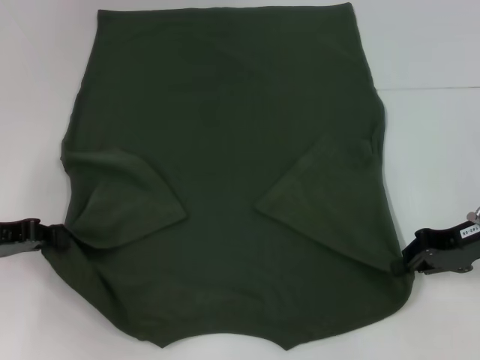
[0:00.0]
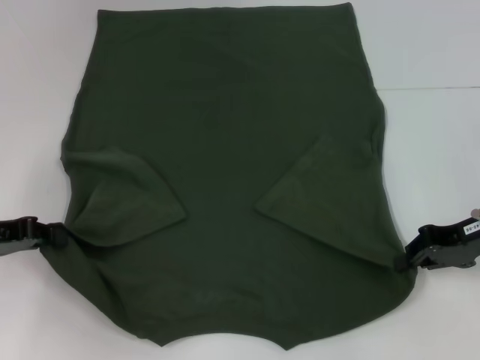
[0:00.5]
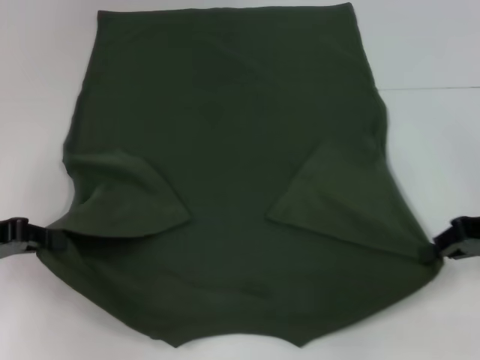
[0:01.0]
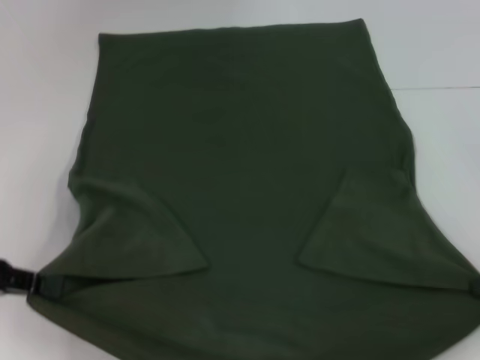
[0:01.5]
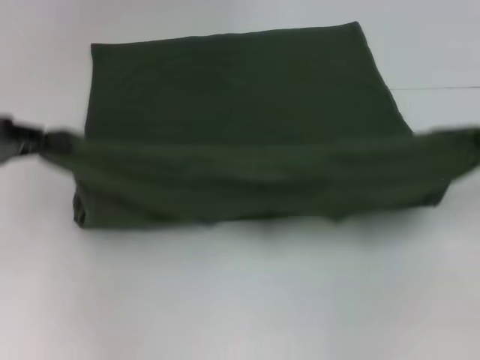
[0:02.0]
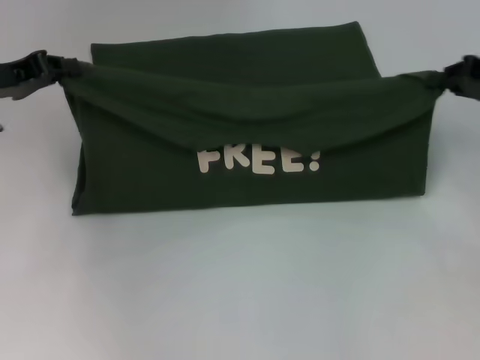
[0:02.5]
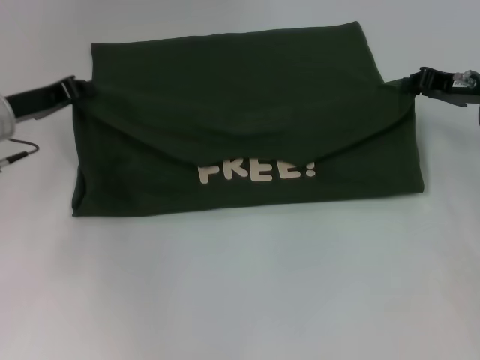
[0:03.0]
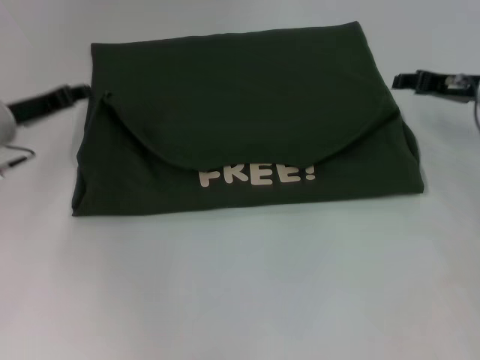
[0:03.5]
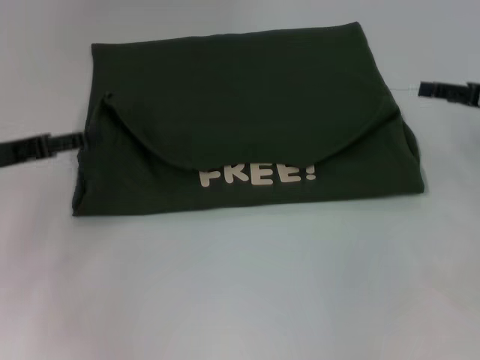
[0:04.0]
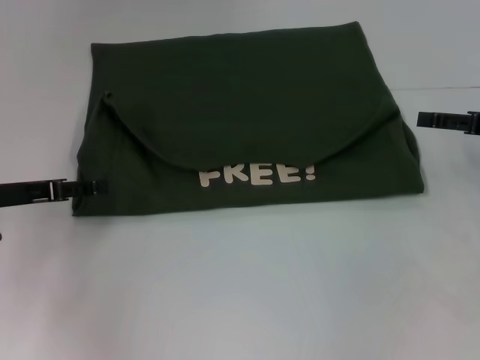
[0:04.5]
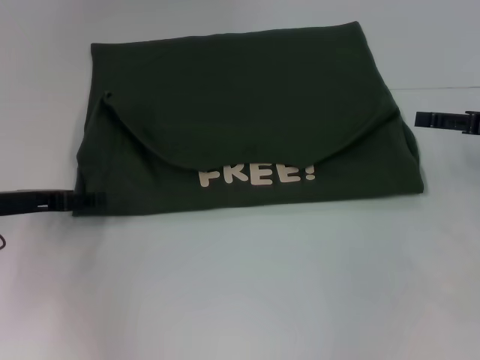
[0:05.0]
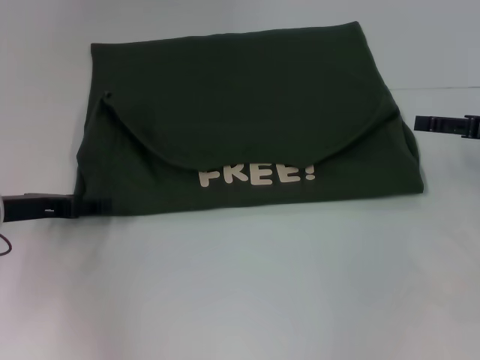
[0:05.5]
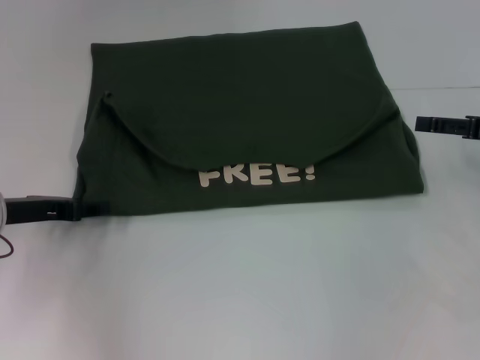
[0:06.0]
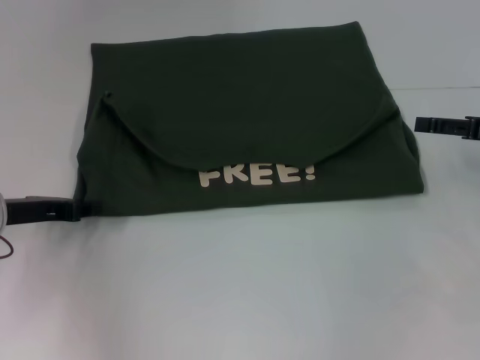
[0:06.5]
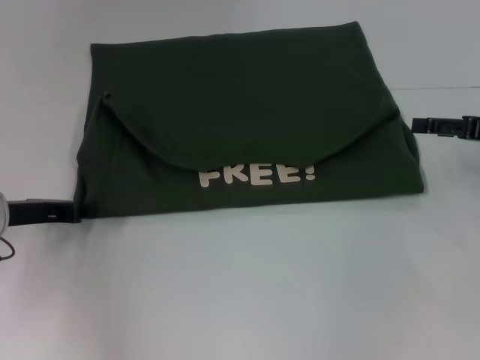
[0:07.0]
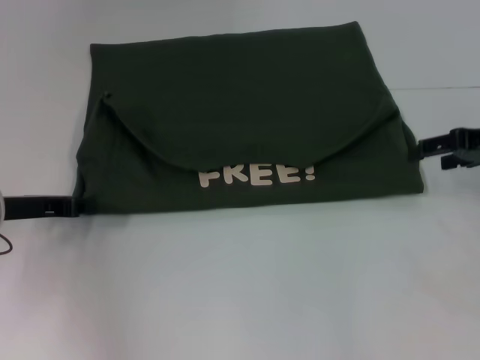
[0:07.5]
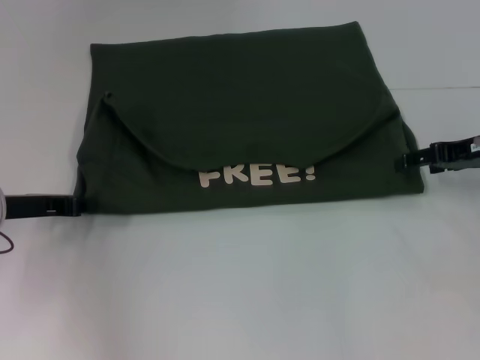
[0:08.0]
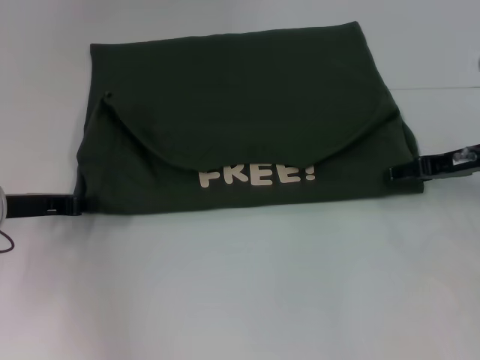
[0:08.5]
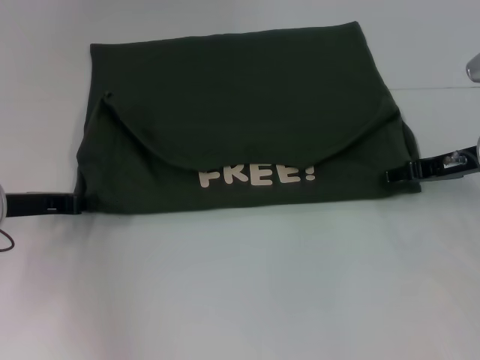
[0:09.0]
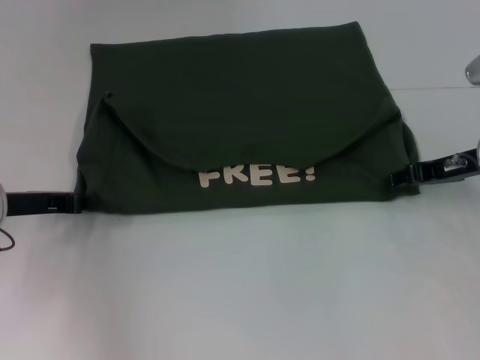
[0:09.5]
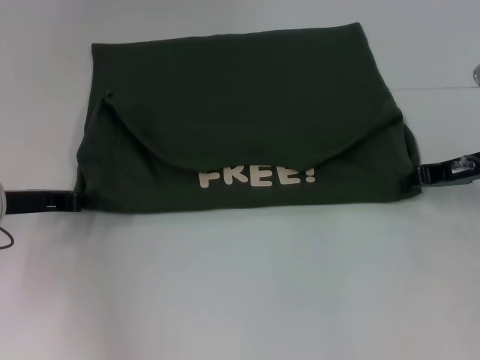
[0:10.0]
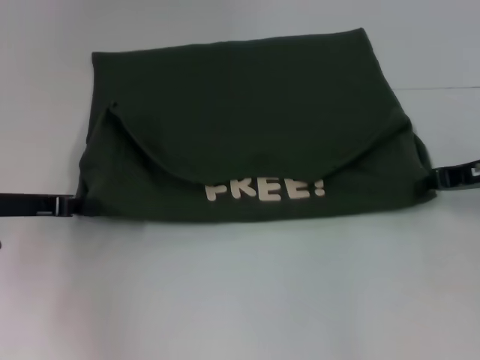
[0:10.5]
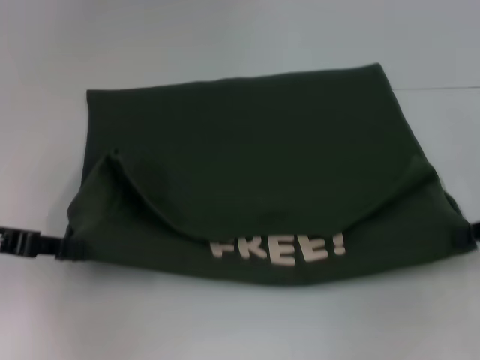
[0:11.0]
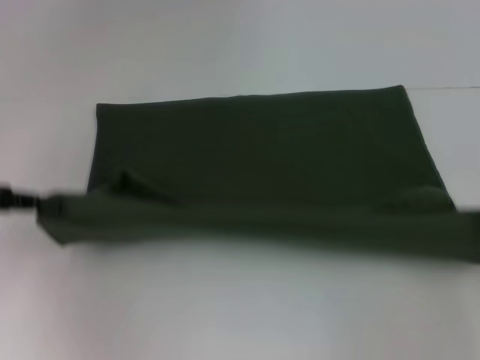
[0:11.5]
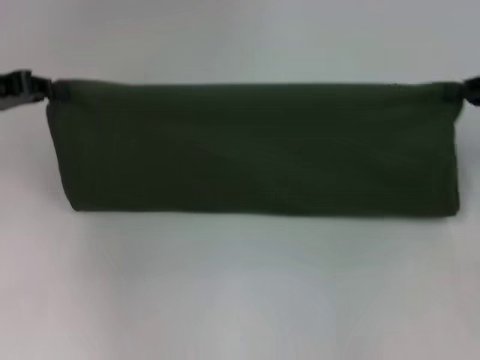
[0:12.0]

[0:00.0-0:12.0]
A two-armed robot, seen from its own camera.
Step, 0:00.0 to 0:03.5: Fold the clothes with your left hand.
Step, 0:00.0 to 0:03.5: Fold the clothes with your right hand.
Step, 0:04.0 to 0:11.0: Pull the clothes with your left hand.
Step, 0:04.0 to 0:11.0: Pull the clothes with your right hand.
0:00.0 to 0:02.0: The right gripper shifts approximately 15 cm to the right and upward. The left gripper moves upward, some 10 cm.
0:02.0 to 0:04.0: The right gripper opens; the left gripper travels downward by some 5 cm, reaches roughly 10 cm forward, then returns, and opens its fingers.
0:04.0 to 0:06.0: The left gripper goes about 5 cm downward.
0:06.0 to 0:08.0: The right gripper ends up some 5 cm from where it was. Meanwhile the left gripper closes.
0:08.0 to 0:10.0: The right gripper closes.
0:10.0 to 0:12.0: The left gripper heads upward, covering some 10 cm. Meanwhile the right gripper moves upward and to the right, approximately 10 cm, and goes backward and returns, roughly 15 cm each way.

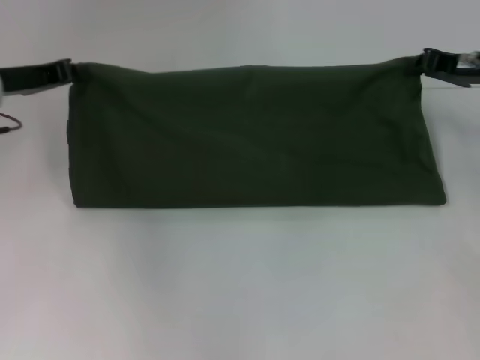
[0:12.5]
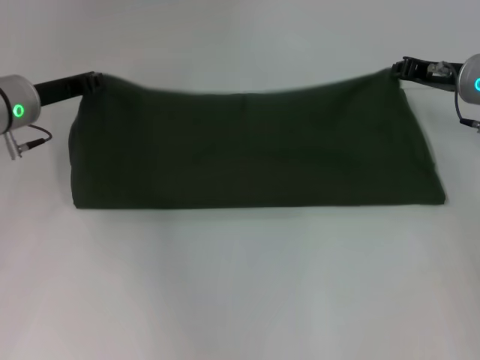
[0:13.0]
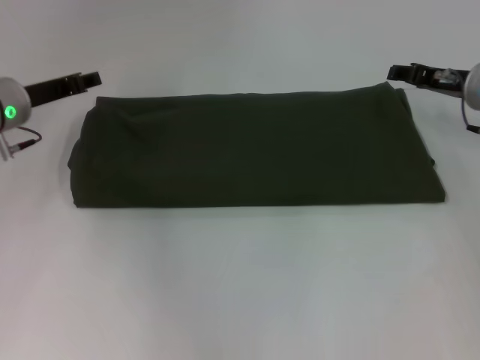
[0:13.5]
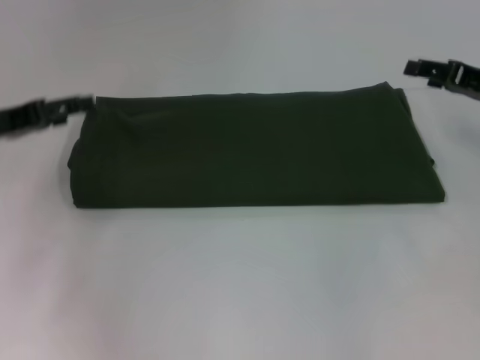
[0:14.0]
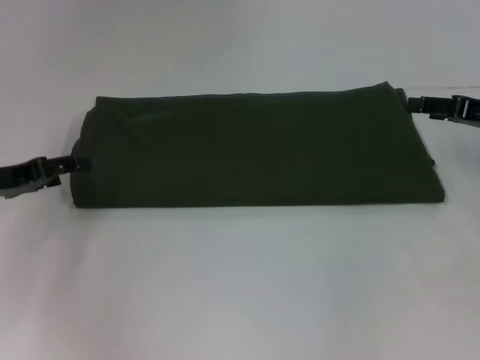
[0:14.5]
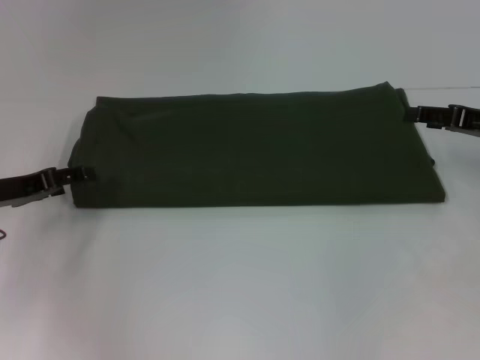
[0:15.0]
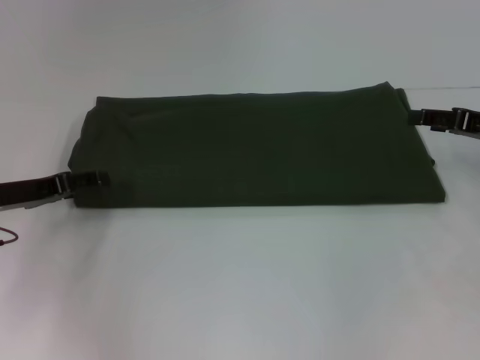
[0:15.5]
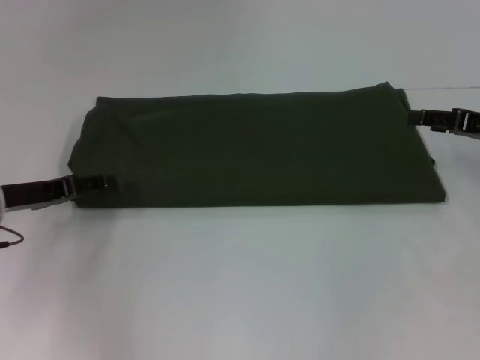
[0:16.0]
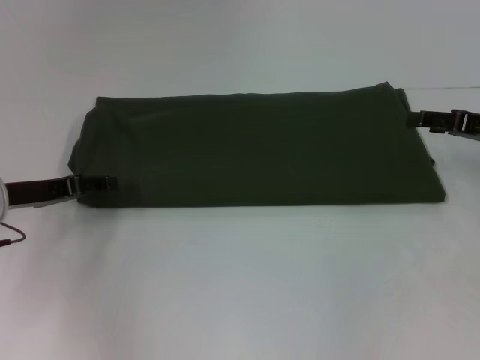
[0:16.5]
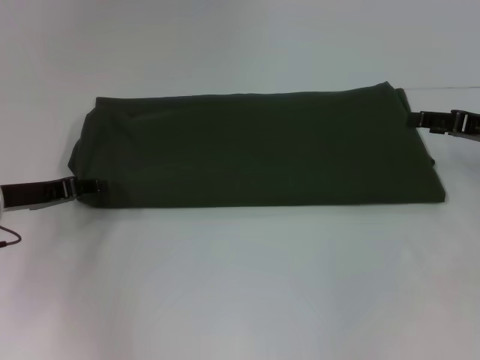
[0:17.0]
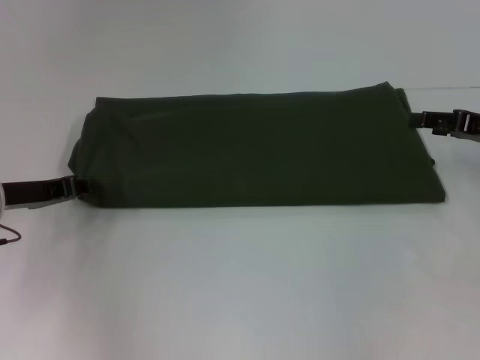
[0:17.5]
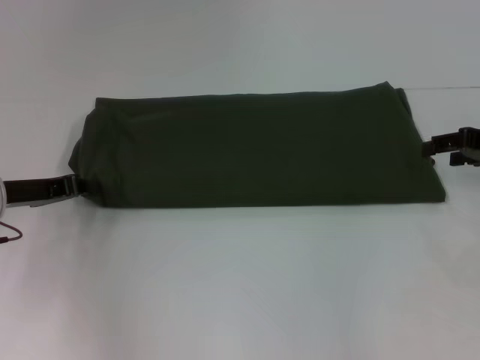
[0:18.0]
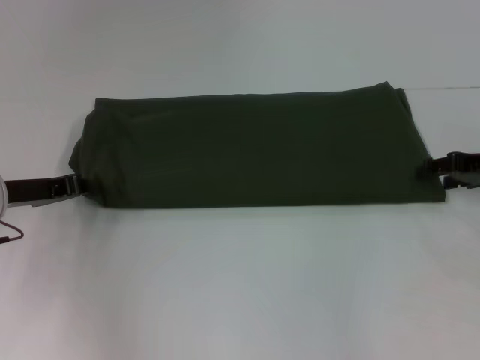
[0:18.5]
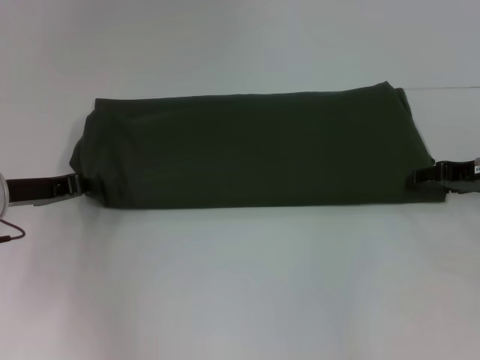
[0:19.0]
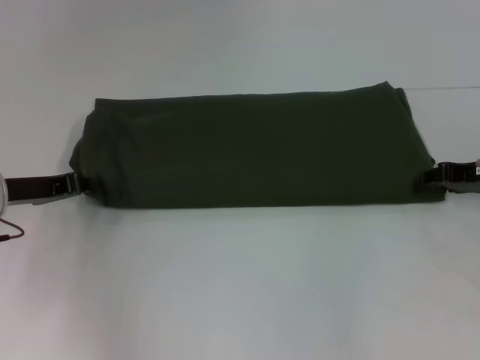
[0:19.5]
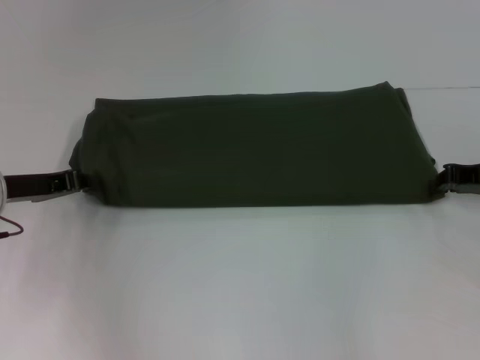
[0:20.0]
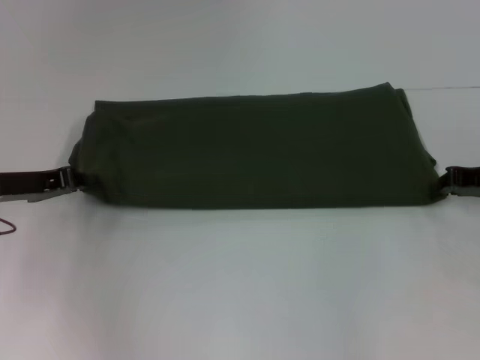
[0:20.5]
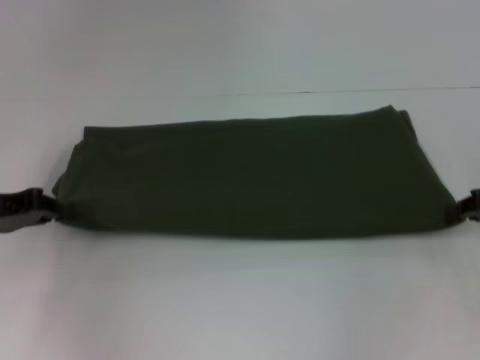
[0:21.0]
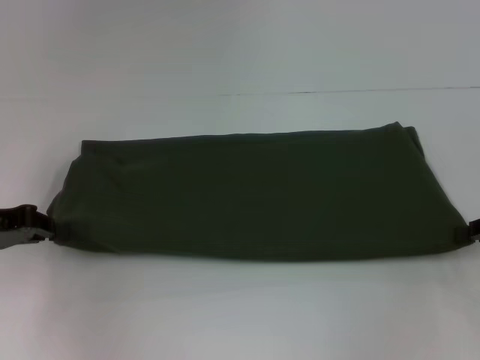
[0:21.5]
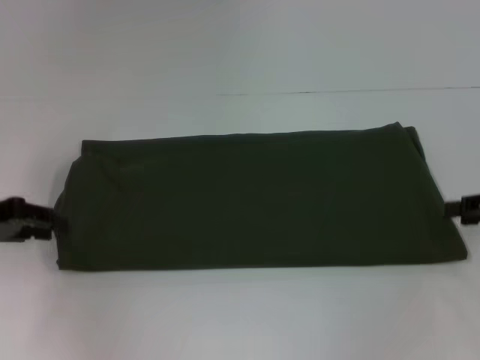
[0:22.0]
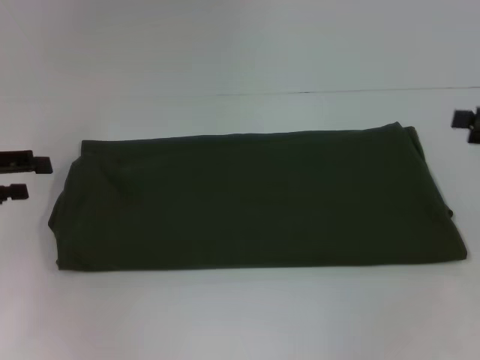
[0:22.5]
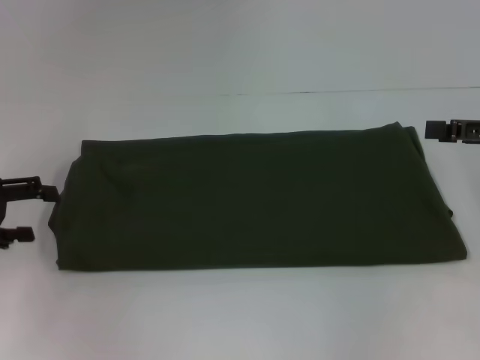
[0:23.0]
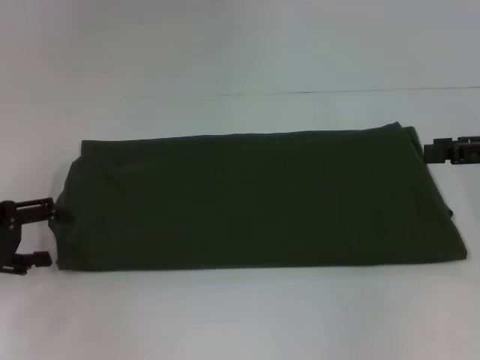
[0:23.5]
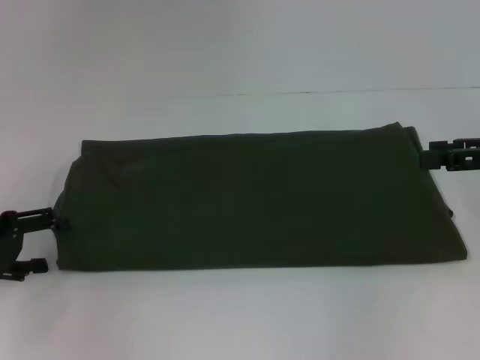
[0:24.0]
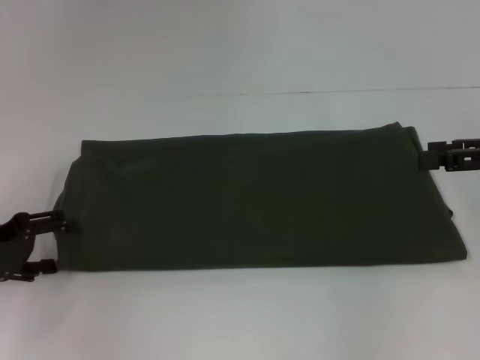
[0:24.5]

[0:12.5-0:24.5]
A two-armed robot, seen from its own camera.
Step, 0:13.5 to 0:22.5: Pull the clothes with your left hand.
Step, 0:13.5 to 0:22.5: Pull the clothes with your right hand.
0:12.5 to 0:14.5: The right gripper is displaced backward by some 5 cm, and opens. The left gripper is displaced backward and downward by some 10 cm, and opens.
0:14.5 to 0:16.5: There are only small adjustments of the grippers.
0:16.5 to 0:18.5: The left gripper closes its fingers.
0:18.5 to 0:20.5: The right gripper closes its fingers.
0:20.5 to 0:22.5: The left gripper is displaced to the left and upward by approximately 10 cm, and opens its fingers, while the right gripper goes about 5 cm upward, and opens up.
0:22.5 to 0:24.5: The left gripper shifts some 5 cm downward.

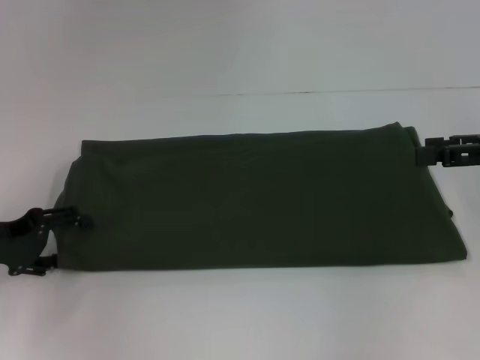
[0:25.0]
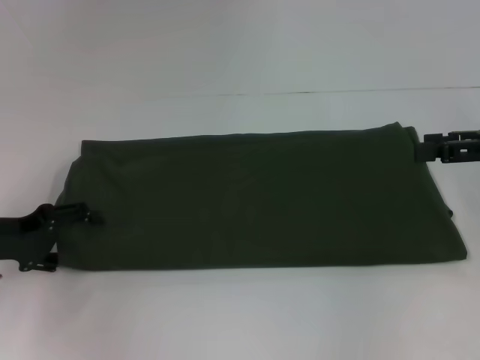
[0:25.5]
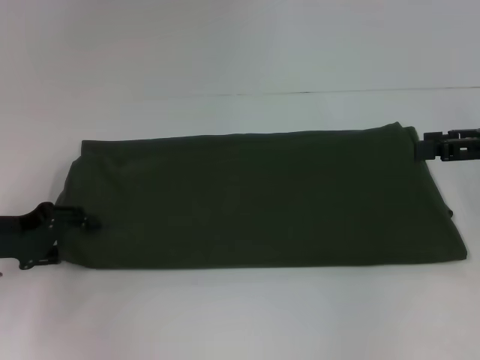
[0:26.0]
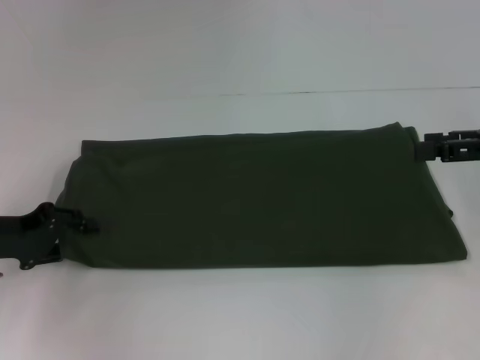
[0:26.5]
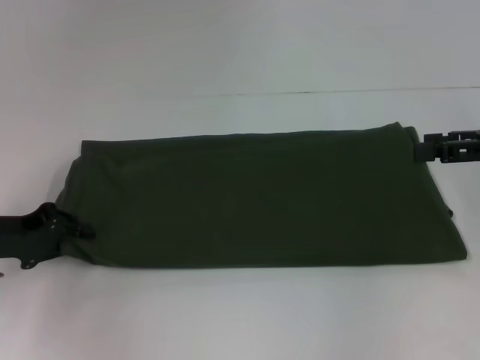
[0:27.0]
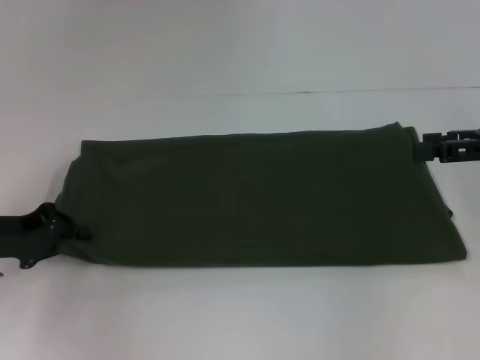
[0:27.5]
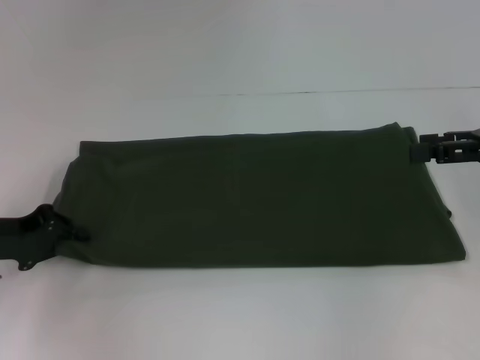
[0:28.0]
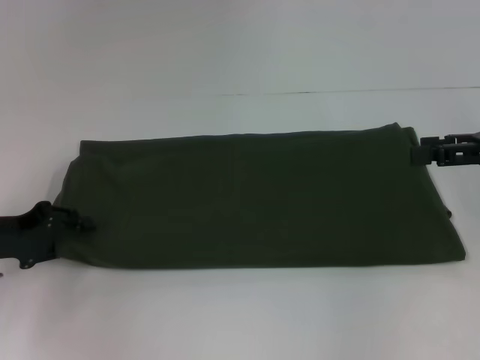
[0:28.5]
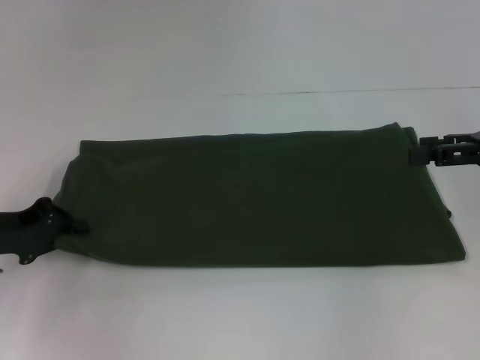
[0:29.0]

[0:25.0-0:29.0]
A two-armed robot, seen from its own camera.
0:25.0 to 0:27.0: The left gripper closes.
0:27.0 to 0:29.0: Neither gripper changes place.
